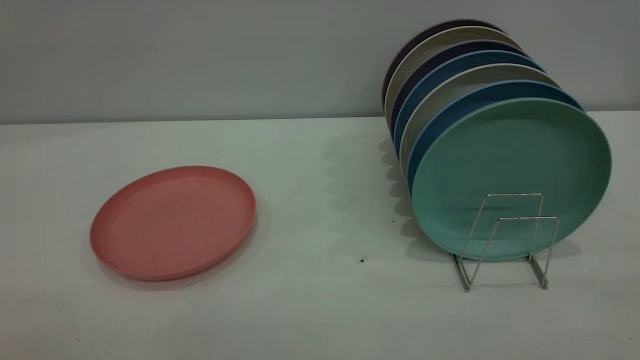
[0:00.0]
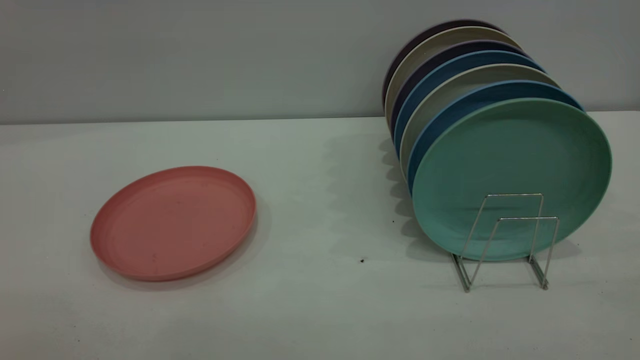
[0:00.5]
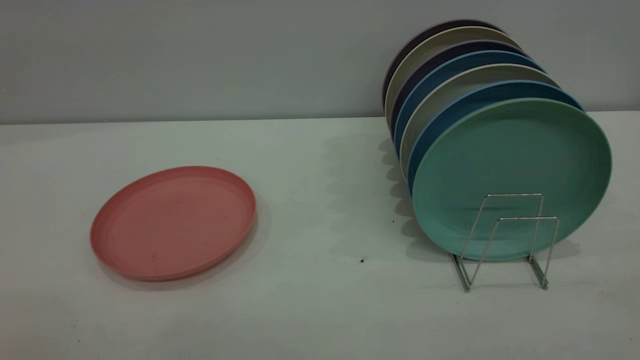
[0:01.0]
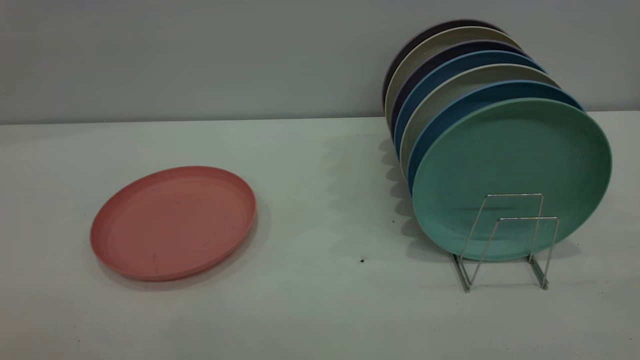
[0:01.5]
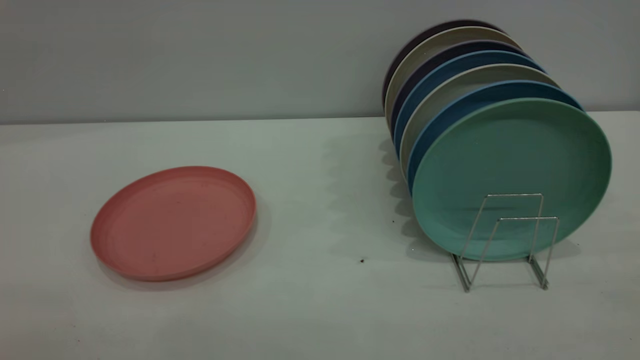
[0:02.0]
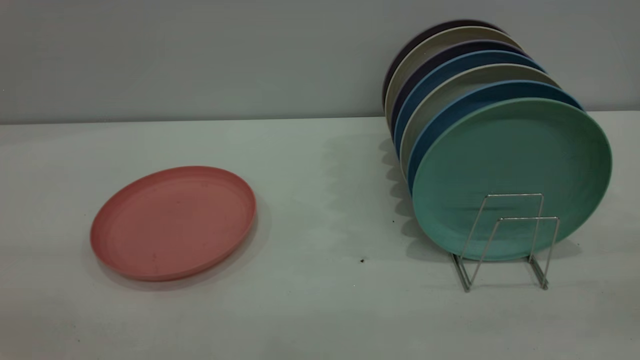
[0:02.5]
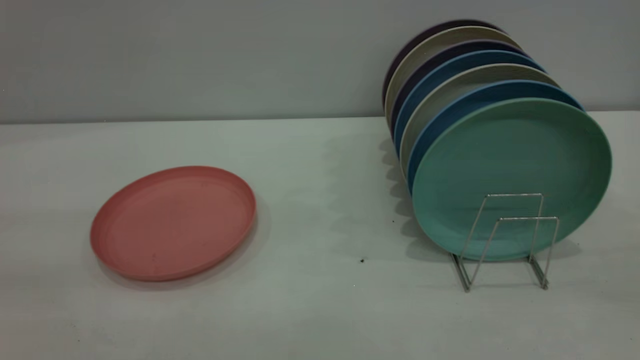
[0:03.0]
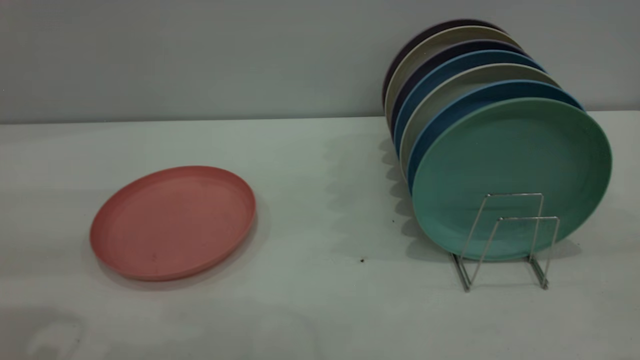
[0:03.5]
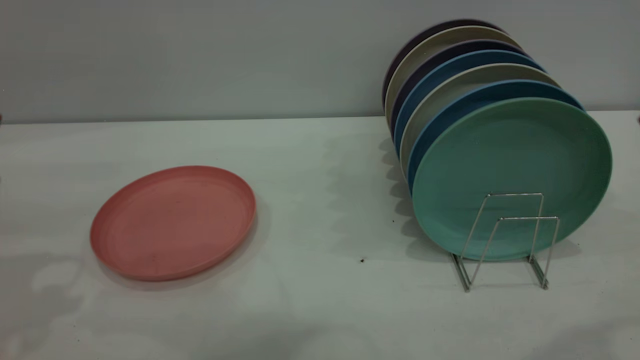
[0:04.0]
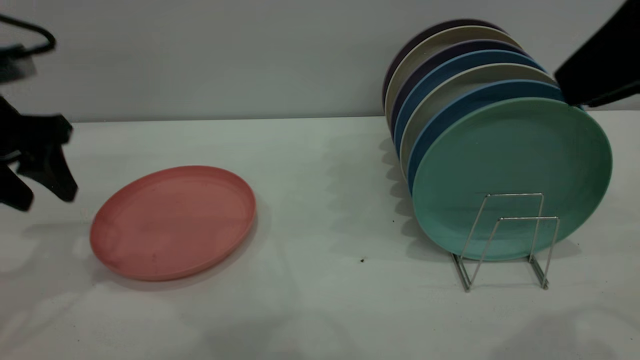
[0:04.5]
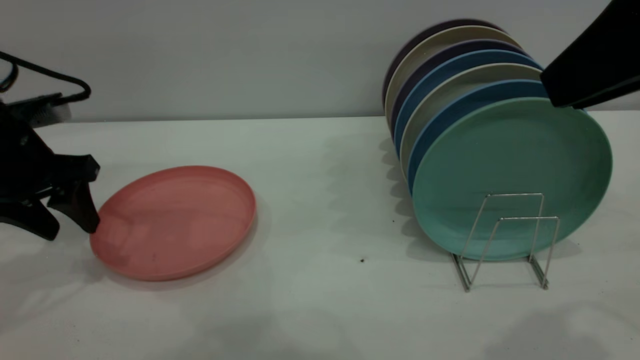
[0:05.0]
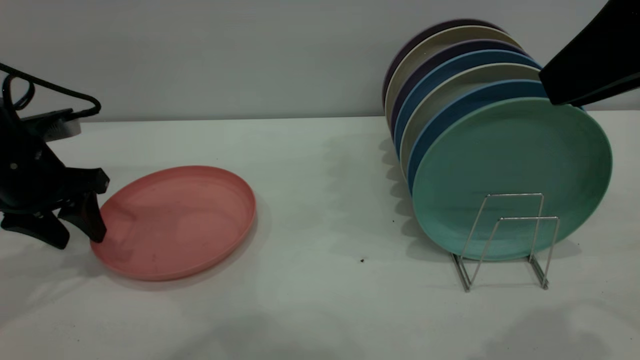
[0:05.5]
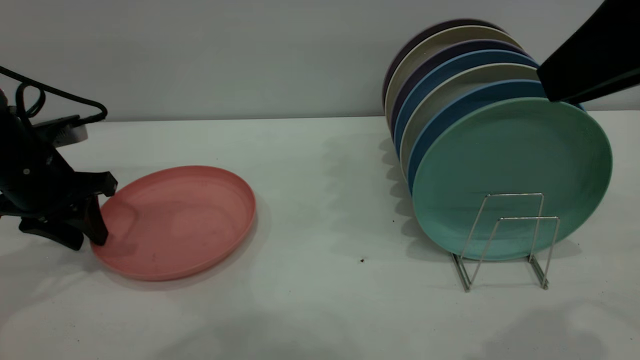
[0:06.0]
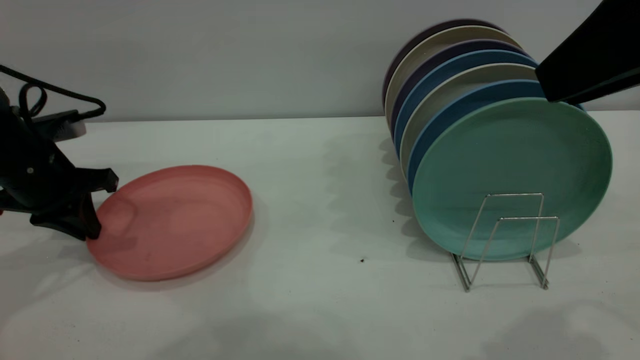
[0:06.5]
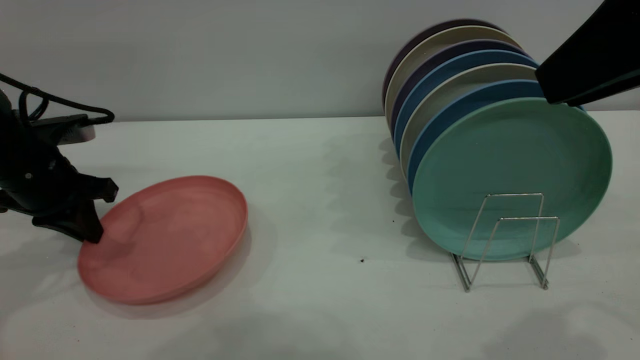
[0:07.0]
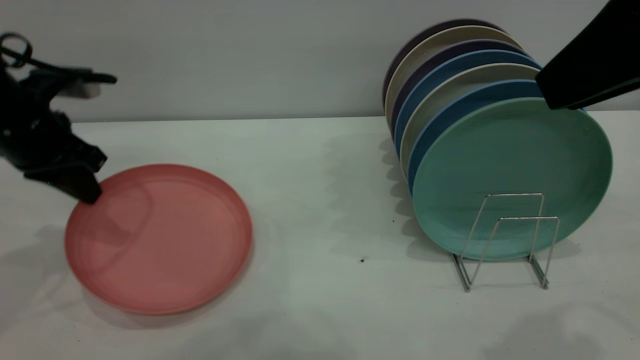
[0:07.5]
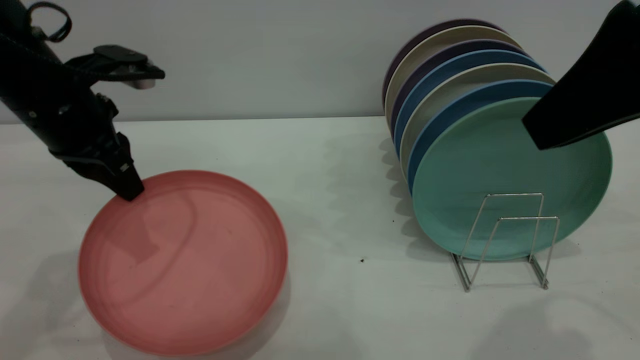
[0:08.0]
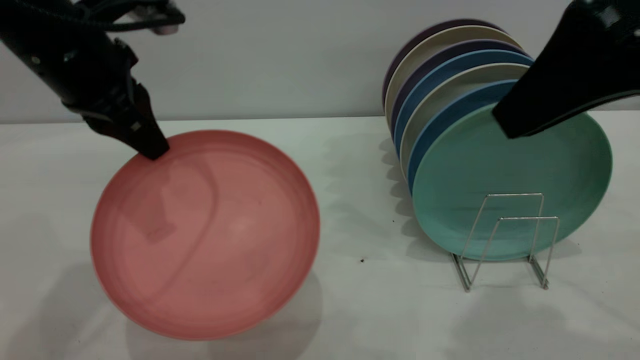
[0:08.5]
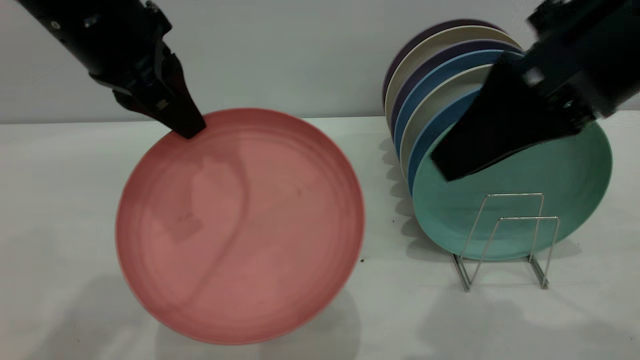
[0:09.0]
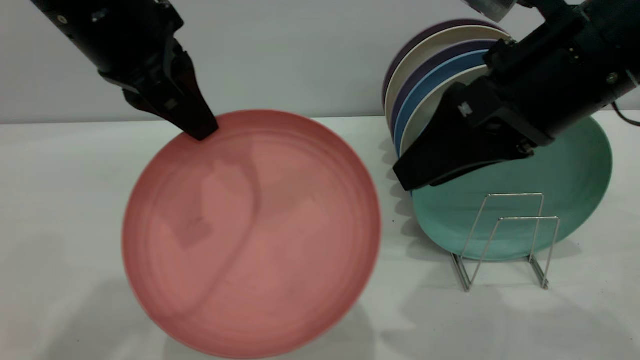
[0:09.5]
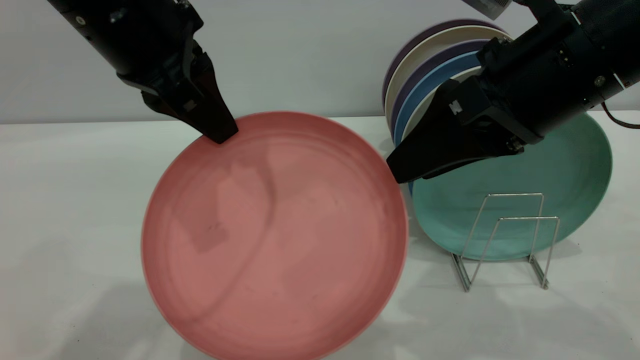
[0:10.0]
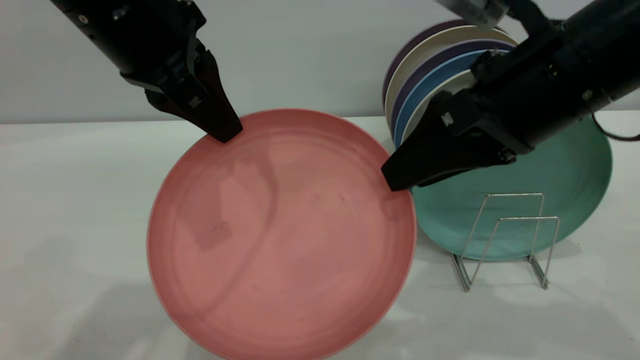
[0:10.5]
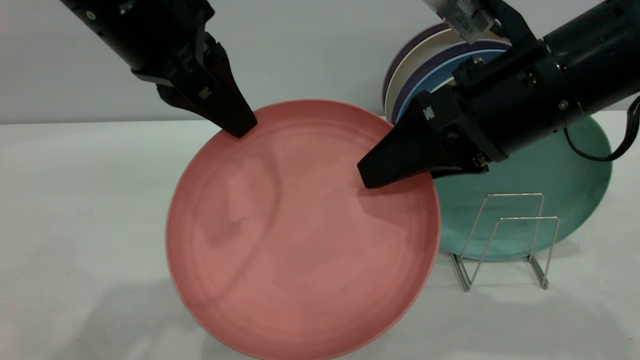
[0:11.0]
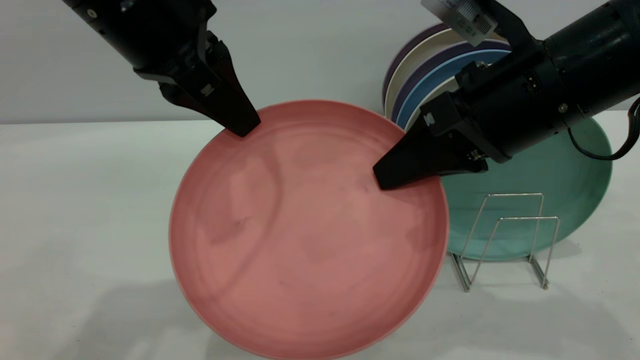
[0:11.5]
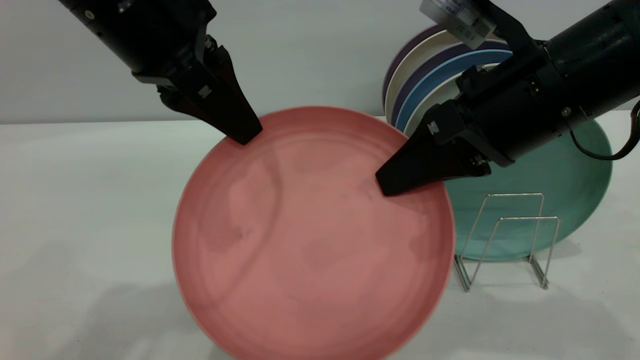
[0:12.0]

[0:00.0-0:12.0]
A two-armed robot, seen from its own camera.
Task of the whole recording: put the plate on the plate rack.
Step, 0:00.0 to 0:07.5: Pick up the plate with the left gripper.
0:04.0 to 0:06.0: The left gripper heads downward and forward, covering some 15 cm, and closes up.
0:06.0 to 0:08.0: The left gripper moves upward and to the right, roughly 10 cm, and closes up.
0:08.0 to 0:10.0: The right gripper heads downward, forward and to the left, covering some 10 cm, and opens its fingers; the left gripper heads to the right, upward and backward, covering approximately 15 cm.
0:10.0 to 0:12.0: The right gripper closes up; the left gripper opens its fingers.

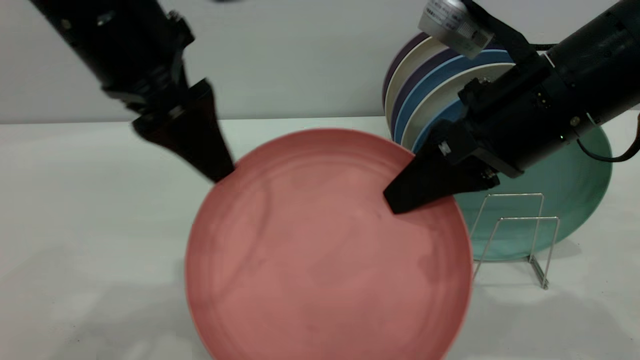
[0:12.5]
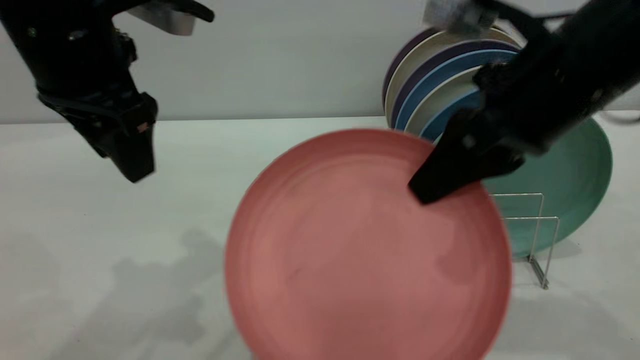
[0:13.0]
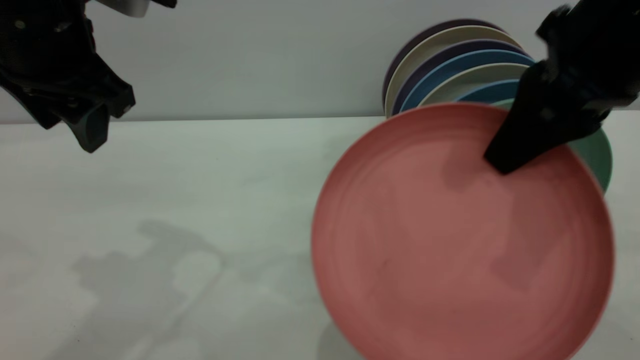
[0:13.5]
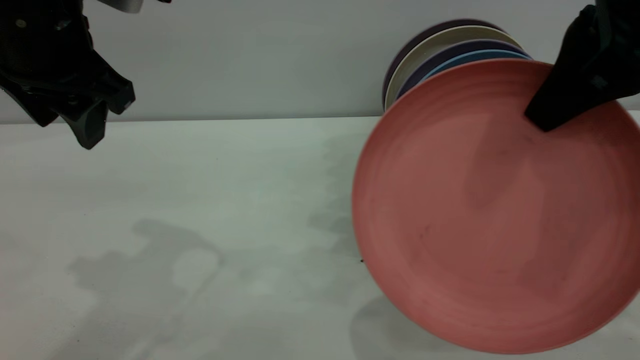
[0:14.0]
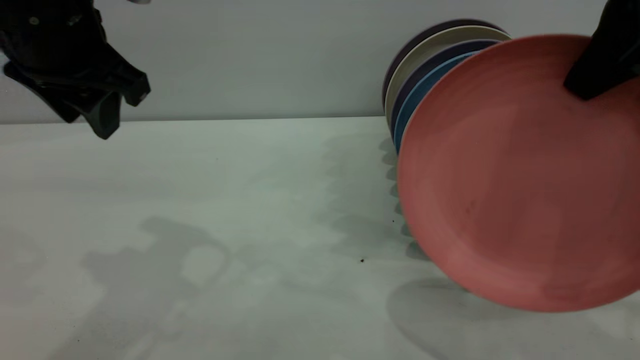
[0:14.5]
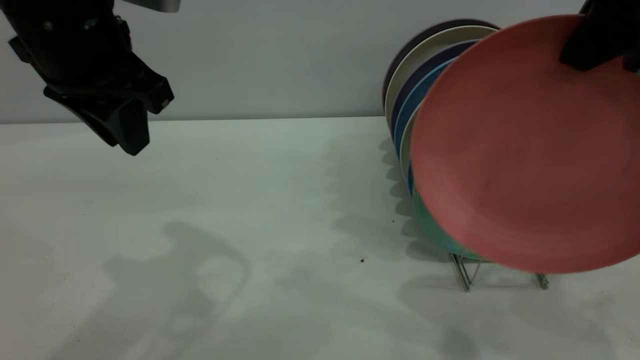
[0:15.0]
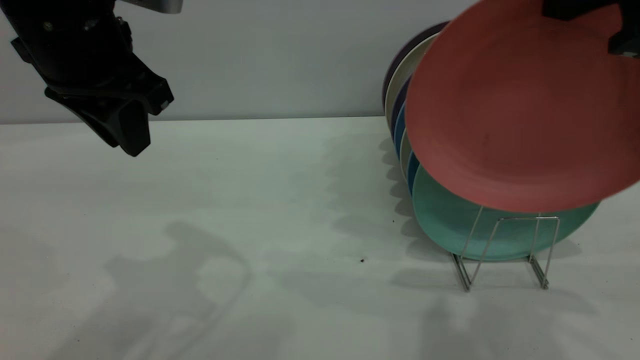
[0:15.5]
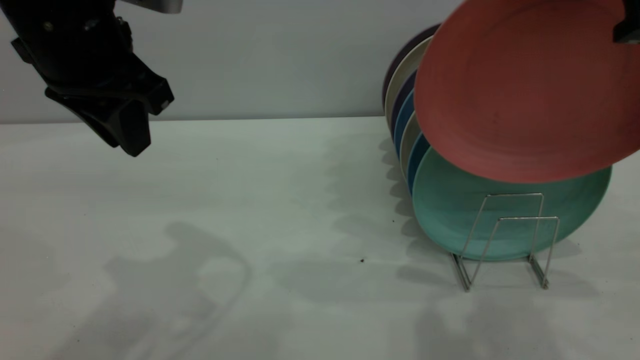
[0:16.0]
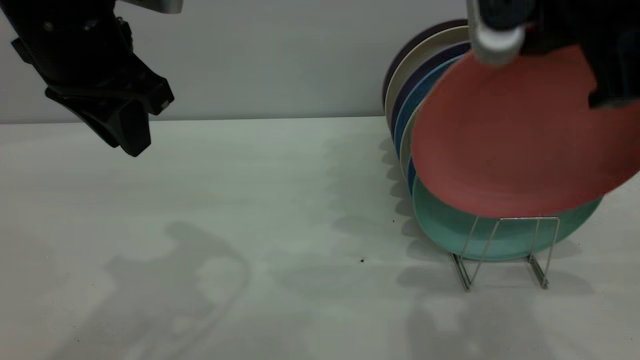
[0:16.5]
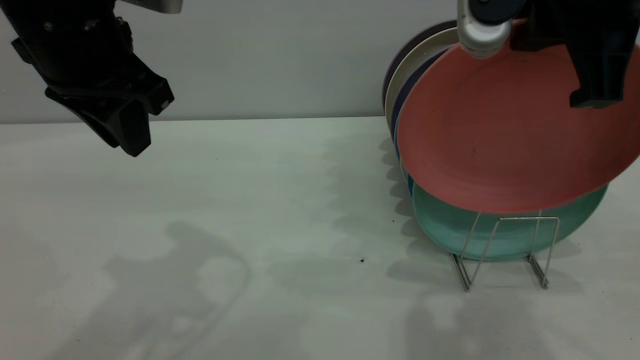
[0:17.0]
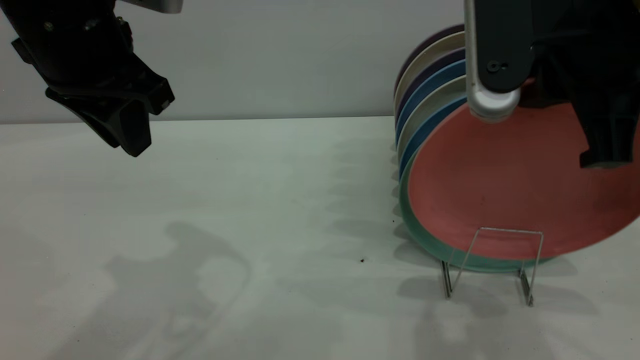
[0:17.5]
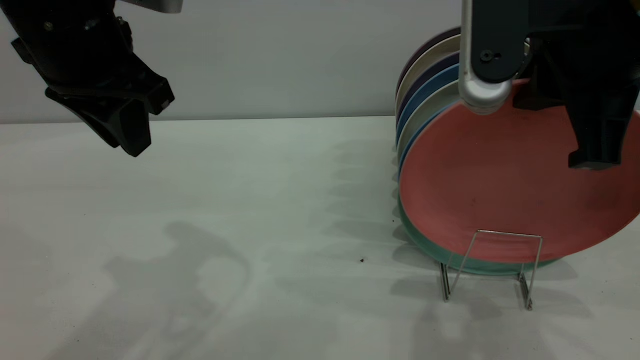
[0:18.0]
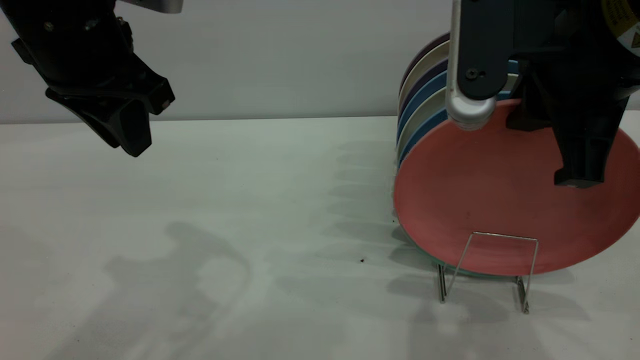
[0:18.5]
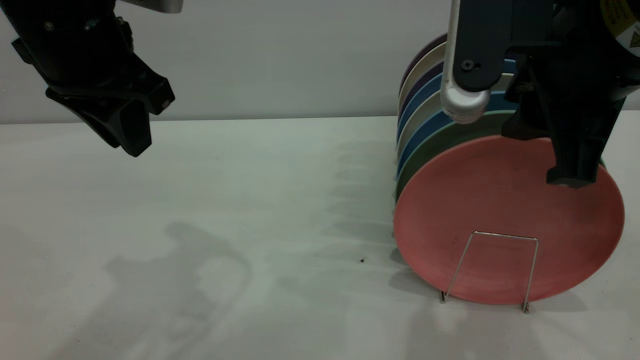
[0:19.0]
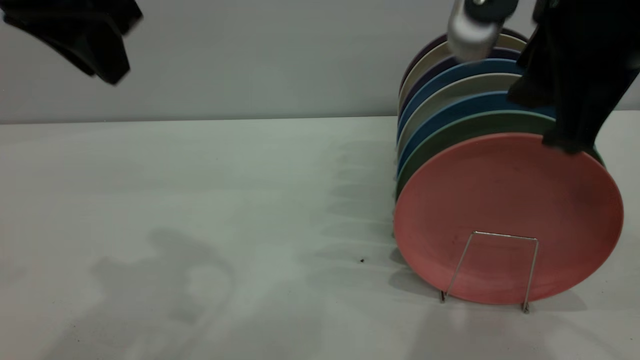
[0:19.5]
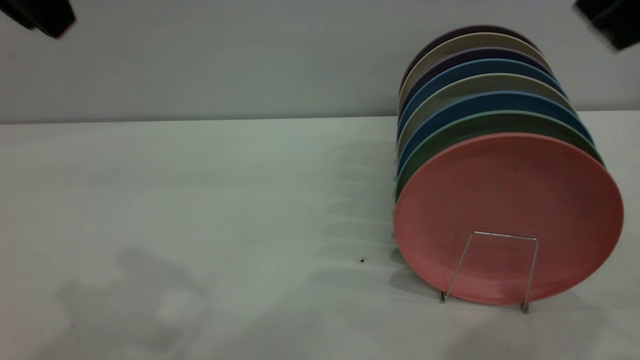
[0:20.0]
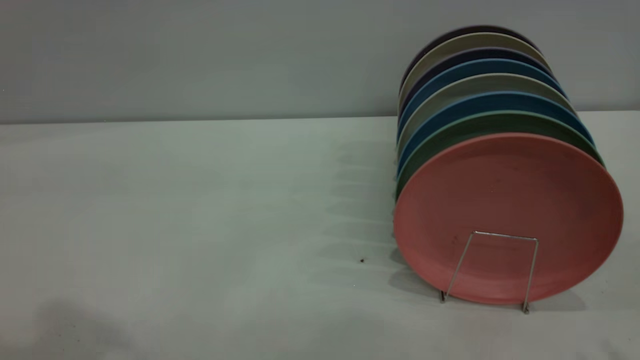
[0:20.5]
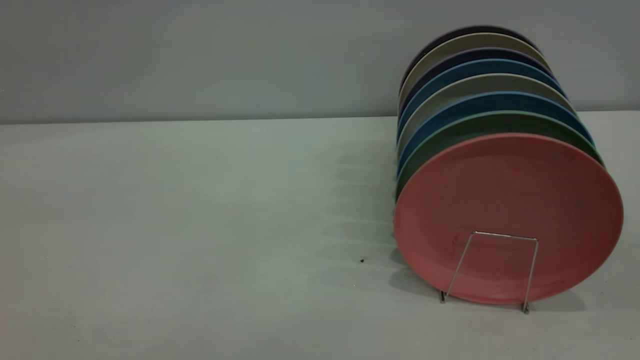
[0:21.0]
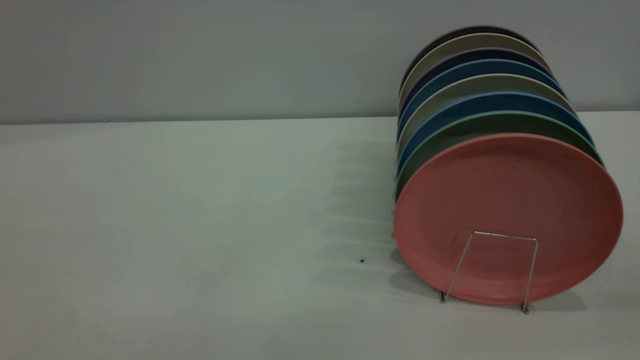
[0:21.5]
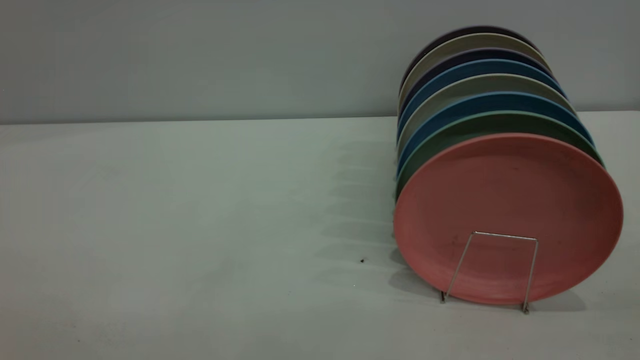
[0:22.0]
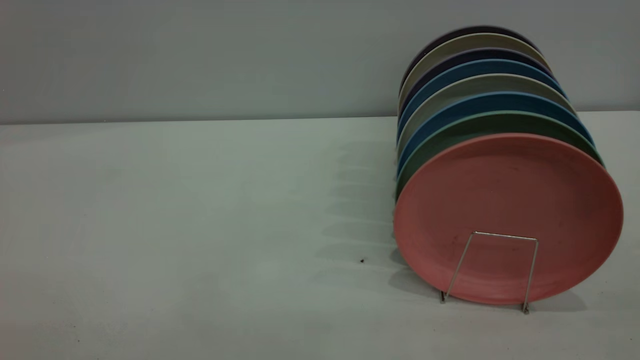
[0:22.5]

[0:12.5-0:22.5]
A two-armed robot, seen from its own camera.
Task of the whole recording: put the plate on the plate rack.
Step, 0:13.0 to 0:19.5: Place the plate on the shelf.
0:12.5 to 0:14.5: The right gripper shifts some 15 cm upward and to the right.
0:14.5 to 0:16.5: The right gripper goes about 5 cm to the left.
0:16.5 to 0:18.5: There are only small adjustments of the grippers.
0:18.5 to 0:20.5: The left gripper is displaced upward and backward by roughly 20 cm; the right gripper moves upward, backward and to the right, roughly 20 cm.
